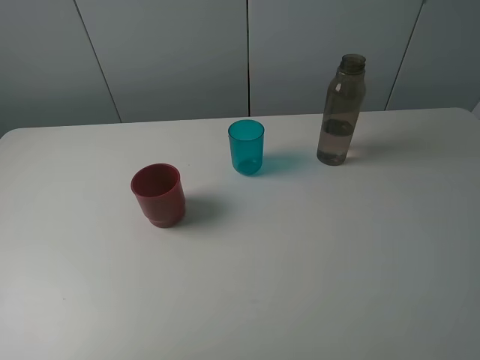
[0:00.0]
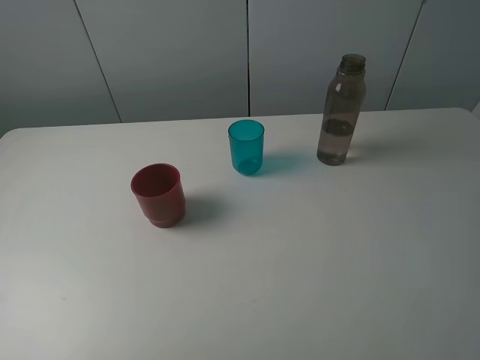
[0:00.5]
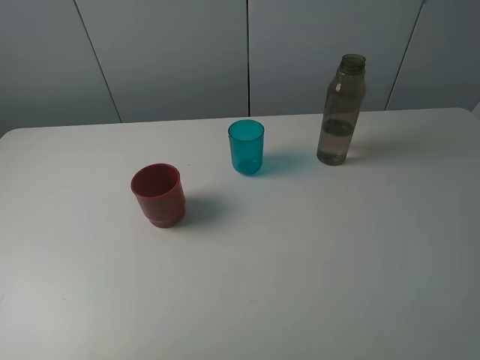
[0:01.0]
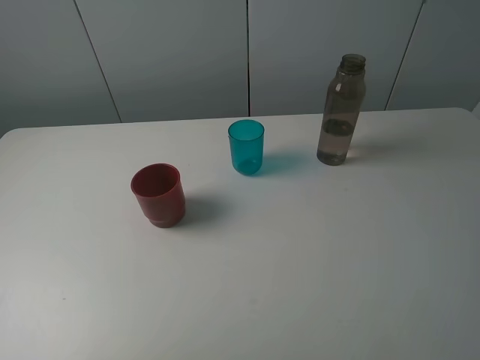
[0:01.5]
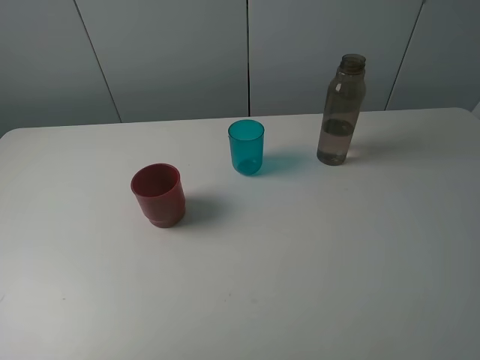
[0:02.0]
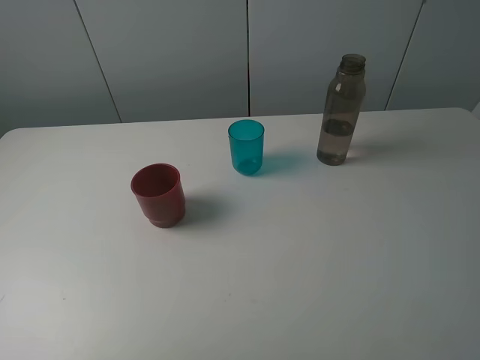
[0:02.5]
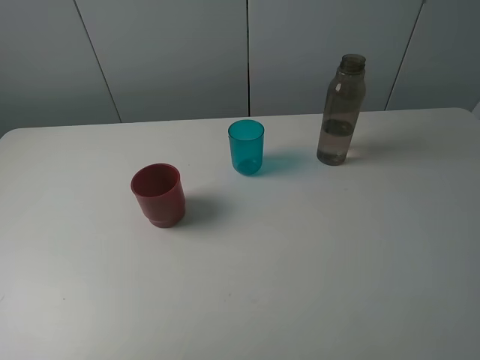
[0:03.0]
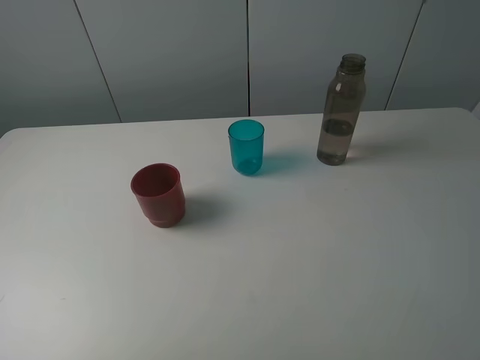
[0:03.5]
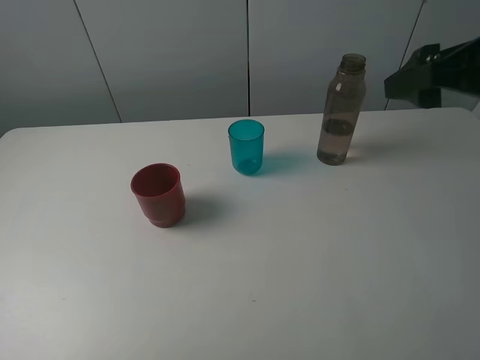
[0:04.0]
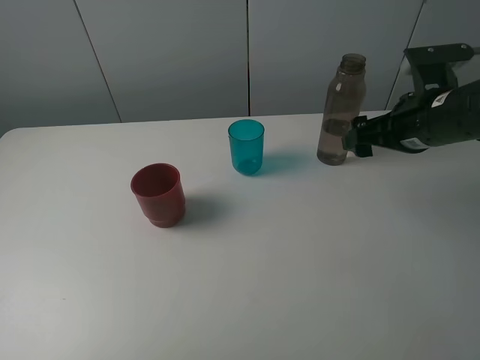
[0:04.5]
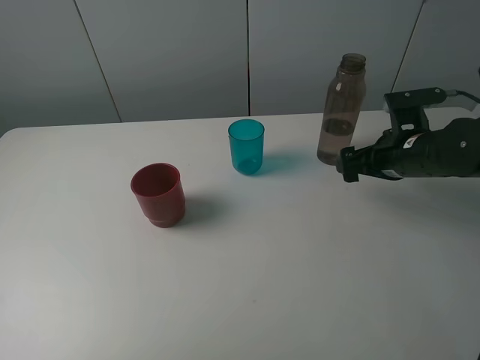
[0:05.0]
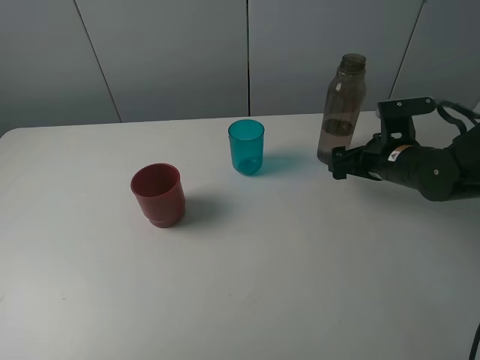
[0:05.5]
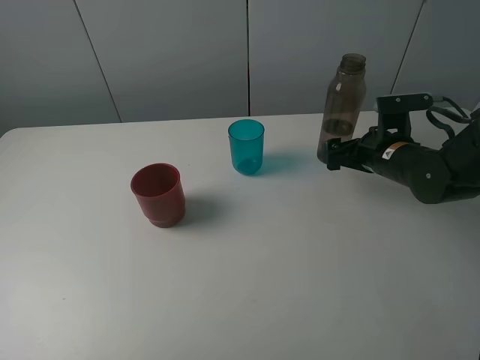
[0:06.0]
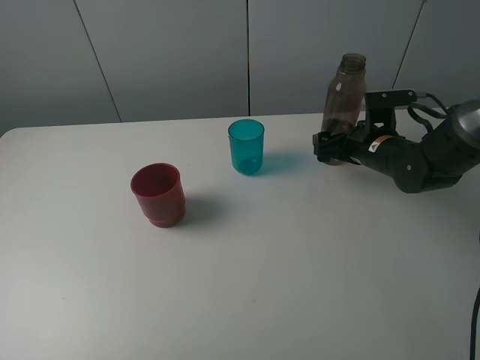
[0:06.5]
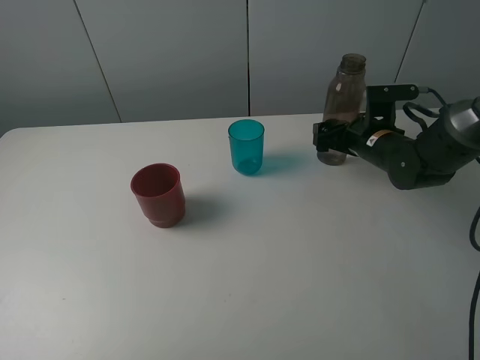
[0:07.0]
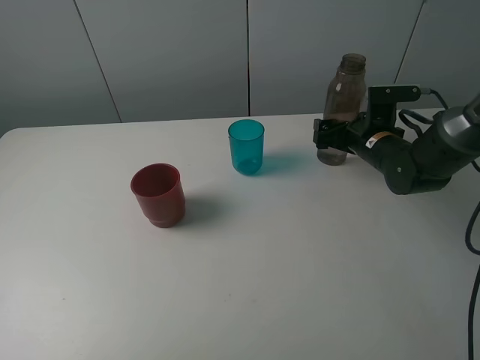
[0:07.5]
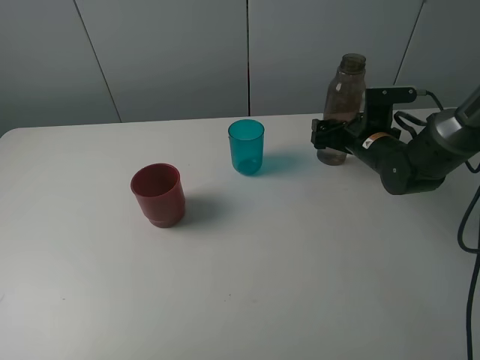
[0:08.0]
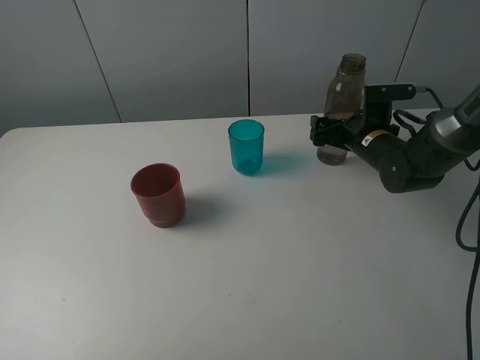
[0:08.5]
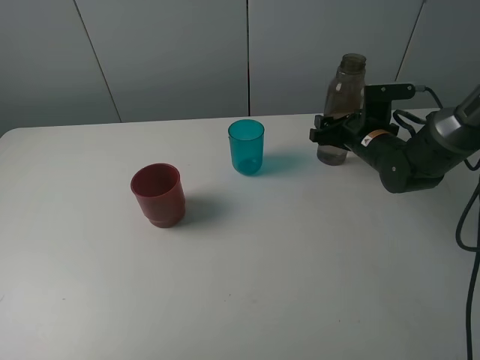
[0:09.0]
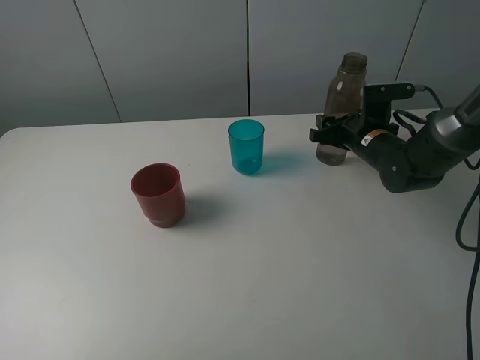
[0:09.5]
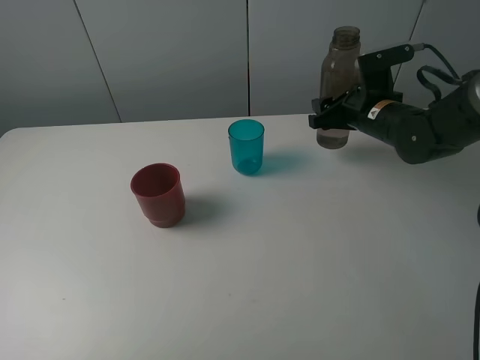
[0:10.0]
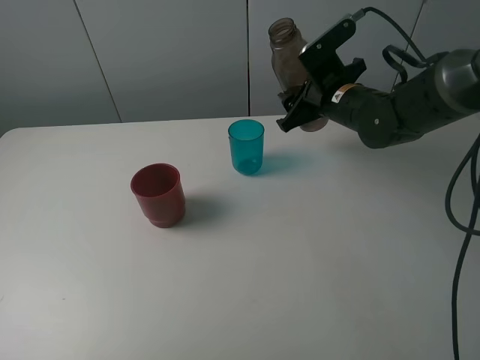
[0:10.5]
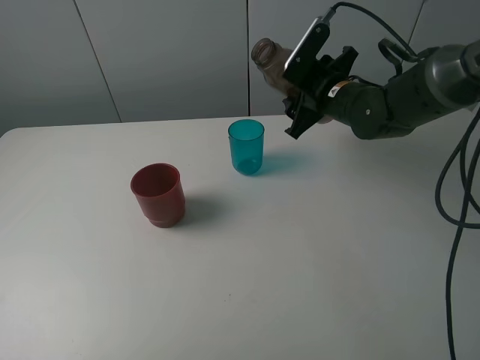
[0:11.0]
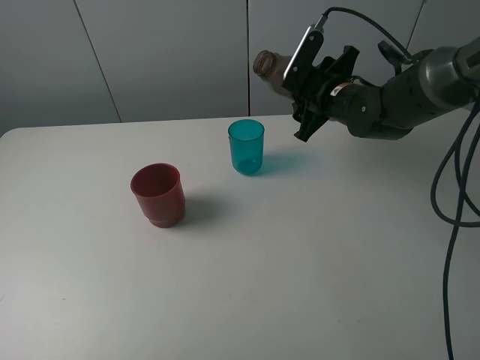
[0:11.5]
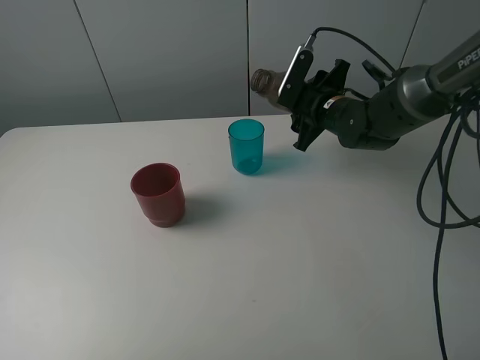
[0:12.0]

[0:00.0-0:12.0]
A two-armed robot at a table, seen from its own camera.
Task of the whole recording: pick up the bottle and pour water into the cup, then pick up the cup containing water and pour it into another cup.
Step, 0:00.0 to 0:09.0: Grasp the brown bottle with the right gripper.
0:00.0 to 0:02.0: The two grippers keep their place.
0:02.0 to 0:04.0: The right gripper is displaced forward by some 20 cm.
0:04.0 to 0:06.0: The right gripper heads downward and forward, covering some 20 cm.
0:06.0 to 0:08.0: The right gripper ends up about 5 cm from where it was.
0:08.0 to 0:10.0: The right gripper moves upward, roughly 5 cm, and closes its fingers.
0:10.0 to 0:12.0: The right gripper is displaced to the left by approximately 5 cm.

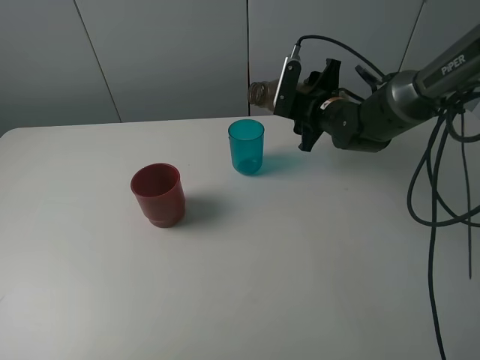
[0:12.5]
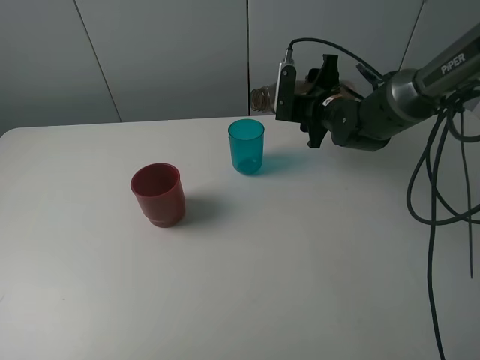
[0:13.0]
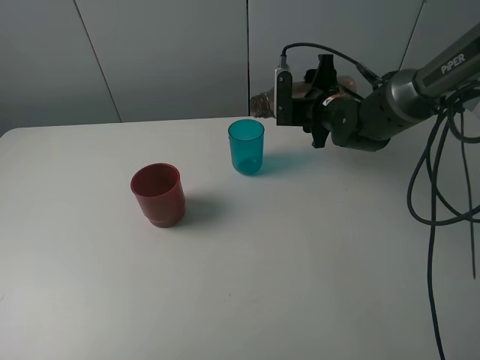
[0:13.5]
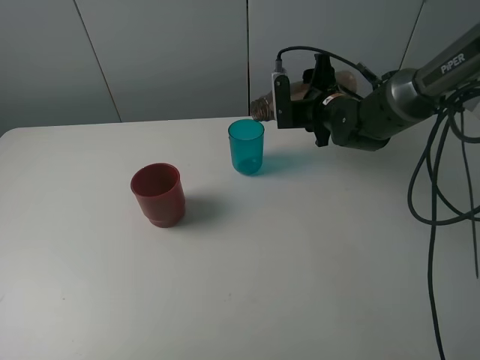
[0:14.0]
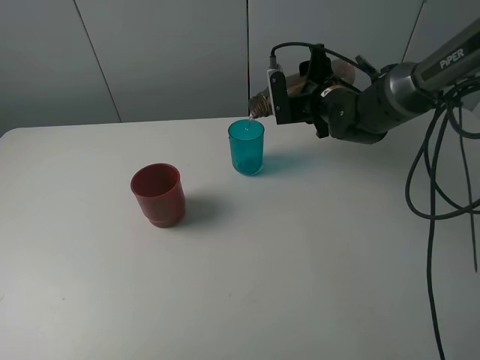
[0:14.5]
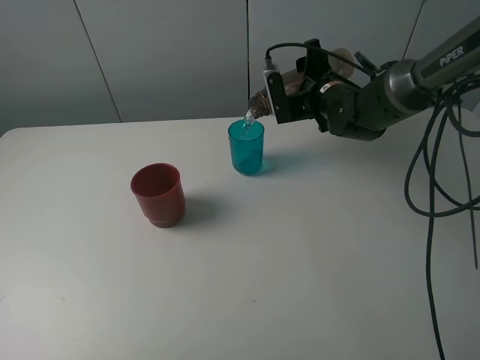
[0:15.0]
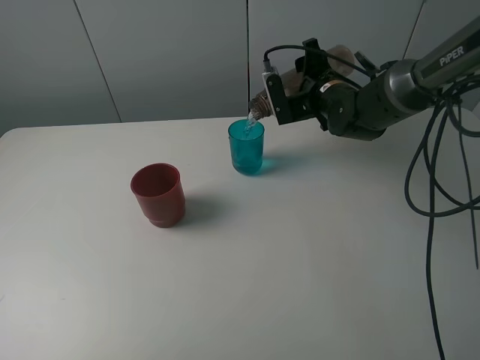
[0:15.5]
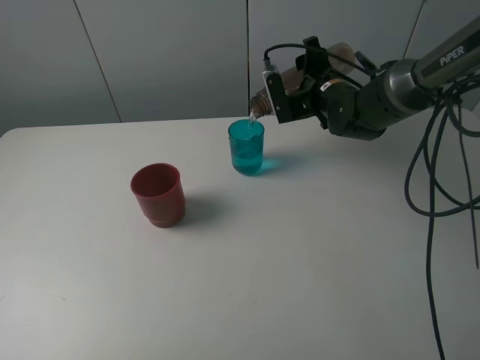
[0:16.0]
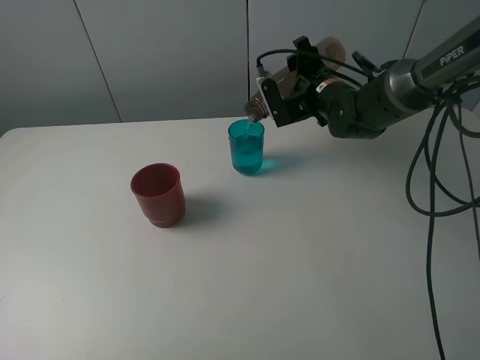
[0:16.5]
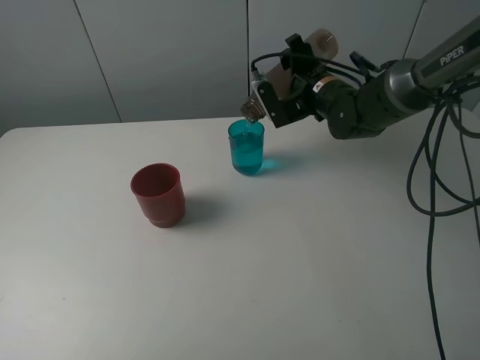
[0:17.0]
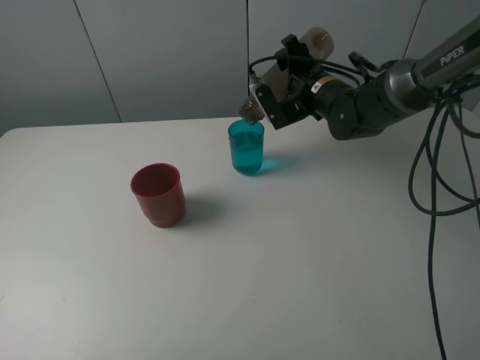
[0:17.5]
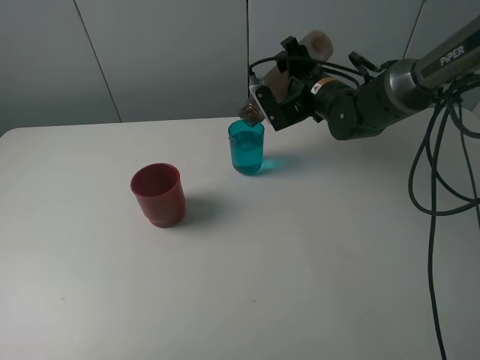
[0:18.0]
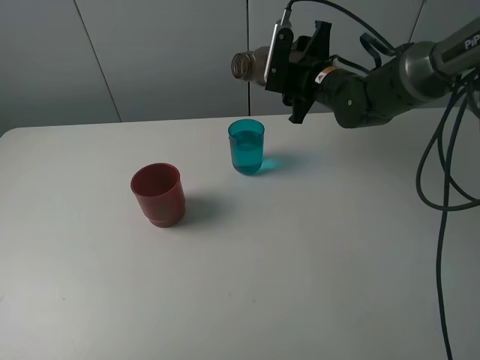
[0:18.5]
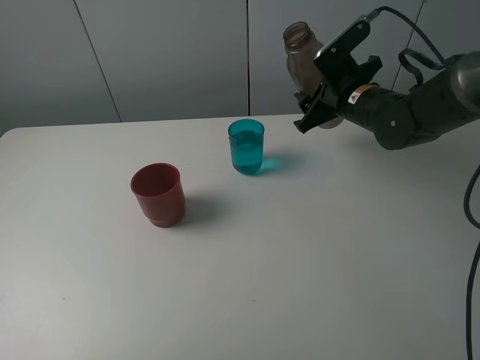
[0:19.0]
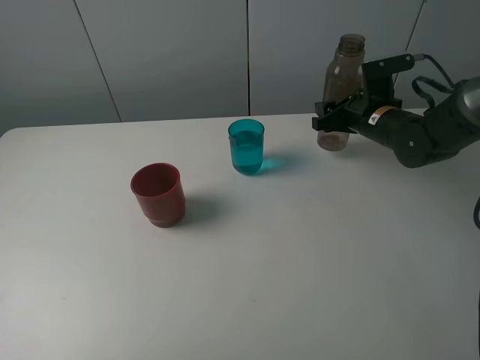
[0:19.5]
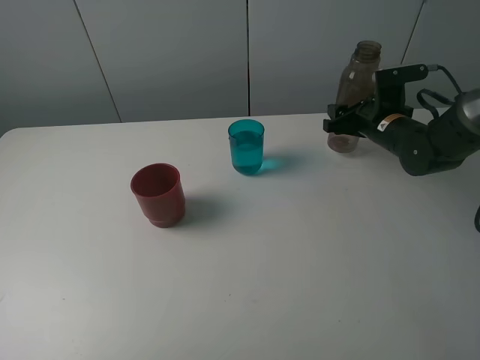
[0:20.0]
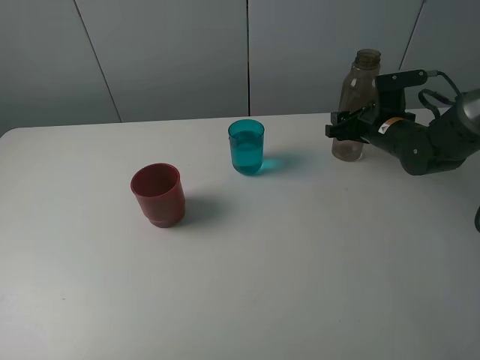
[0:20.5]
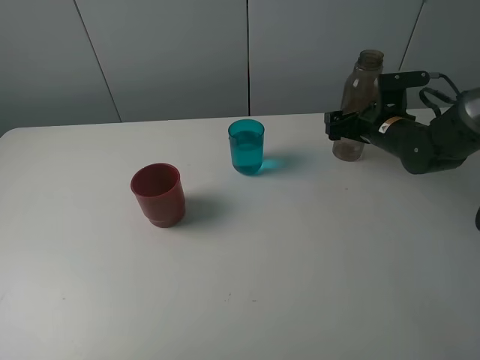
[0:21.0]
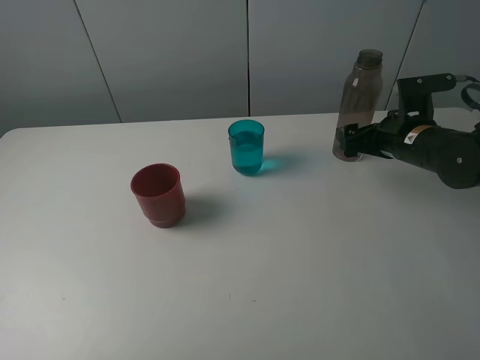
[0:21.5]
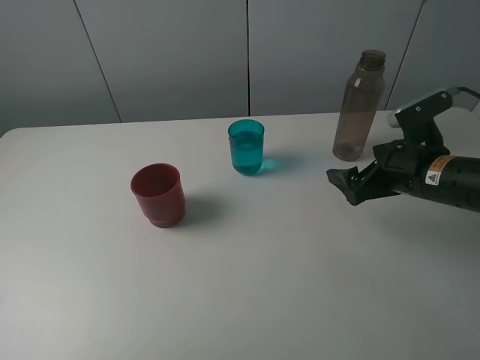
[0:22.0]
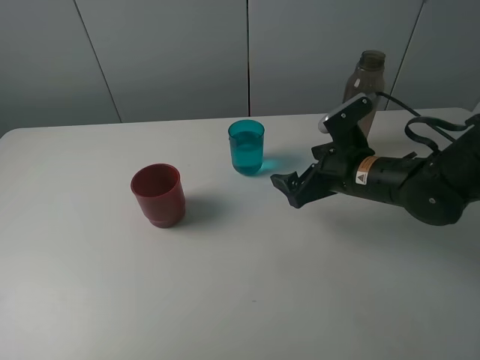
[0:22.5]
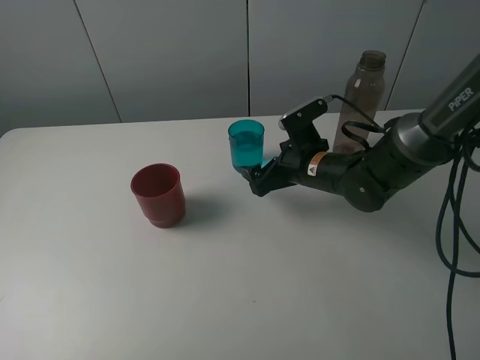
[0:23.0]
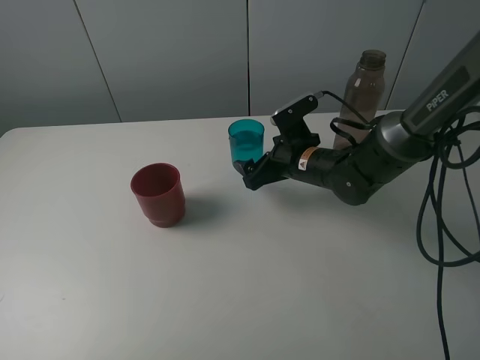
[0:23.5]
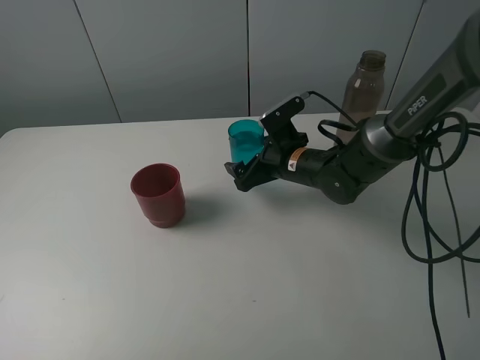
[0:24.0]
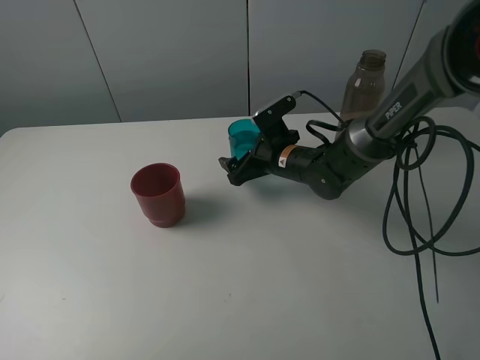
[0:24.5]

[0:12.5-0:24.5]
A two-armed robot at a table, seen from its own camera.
Task of the whole recording: pick up the bottle and pour water into the cup, then pick up the cup containing water and pour it into another cup.
Step, 0:12.5 to 0:18.0: Pour water from brown bottle to blue cup with the right gripper.
Step, 0:18.5 to 0:21.0: Place the brown bottle with the right gripper.
0:14.5 to 0:16.5: The grippers stay close to where they were, moving slightly.
0:18.5 to 0:20.5: The right gripper goes some 15 cm to the right and downward.
0:20.5 to 0:22.5: The right gripper heads backward and to the left, covering some 15 cm, and opens its fingers.
0:22.5 to 0:24.5: The right gripper moves forward, to the left and downward, approximately 15 cm.

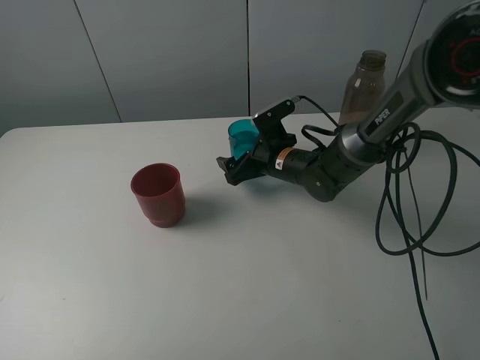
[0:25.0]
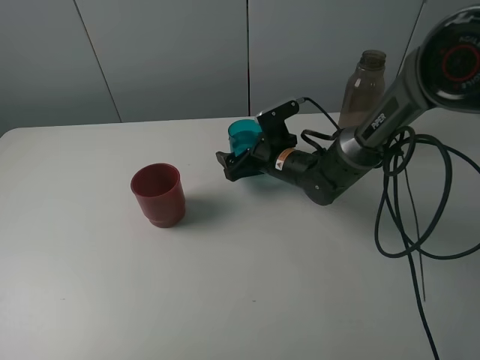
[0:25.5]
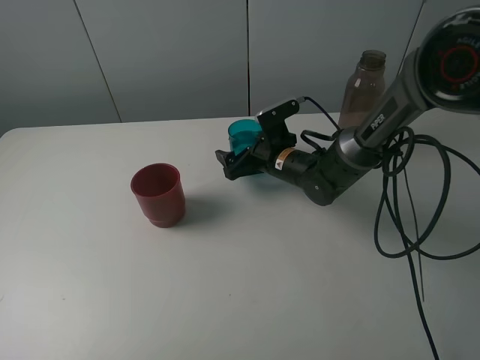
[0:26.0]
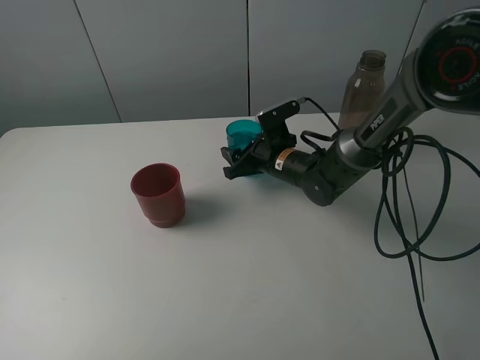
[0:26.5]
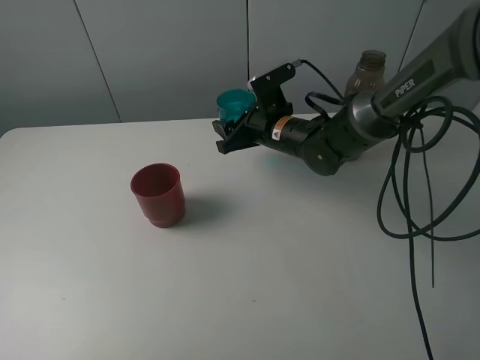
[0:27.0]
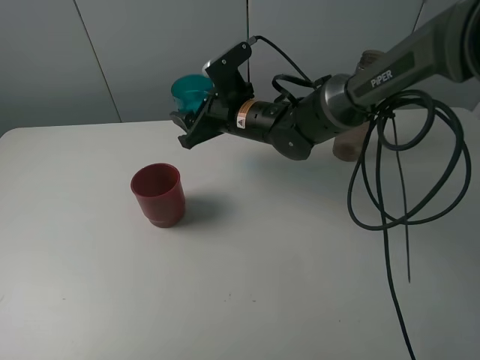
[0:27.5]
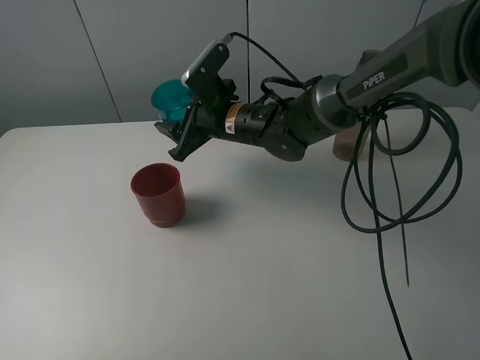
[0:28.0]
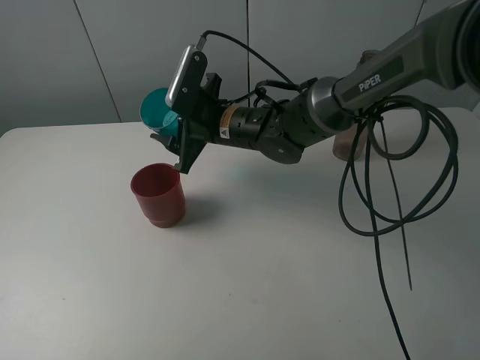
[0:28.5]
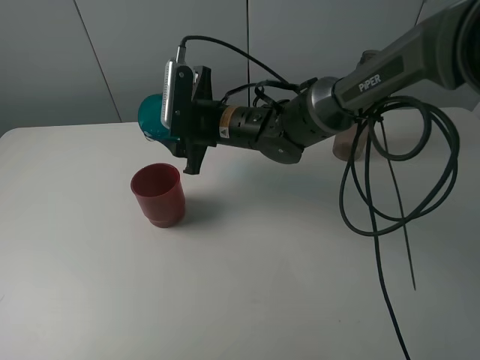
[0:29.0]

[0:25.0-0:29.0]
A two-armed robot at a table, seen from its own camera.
Task of the whole recording: pick up the bottle and pour water into the cup, then pick up the cup containing water and pour it into another cup.
0:25.0 to 0:27.0: The right gripper heads upward, covering some 5 cm, and closes.
0:27.0 to 0:29.0: The right gripper shifts about 10 cm to the left.
